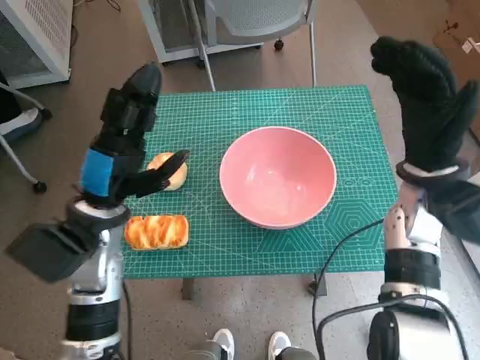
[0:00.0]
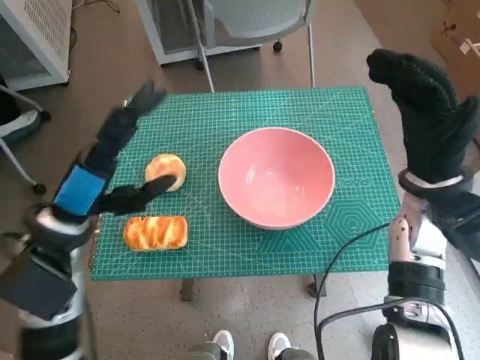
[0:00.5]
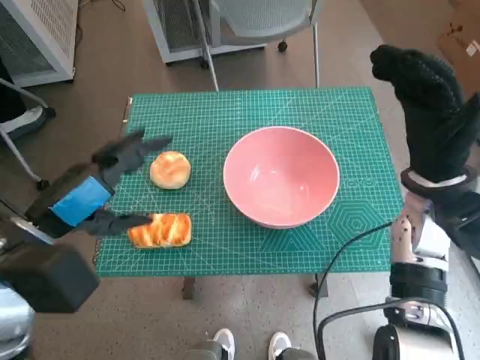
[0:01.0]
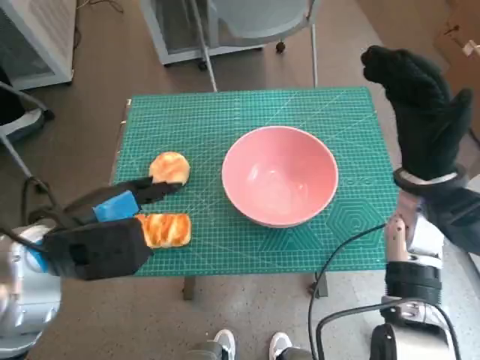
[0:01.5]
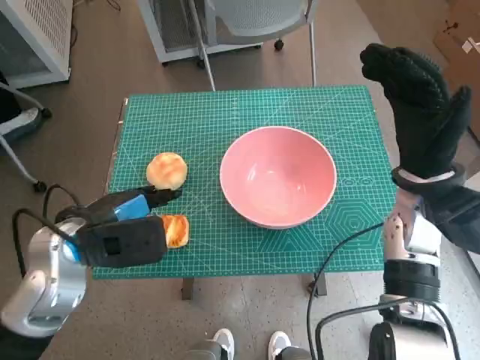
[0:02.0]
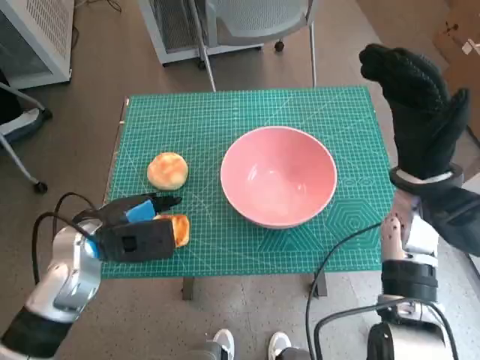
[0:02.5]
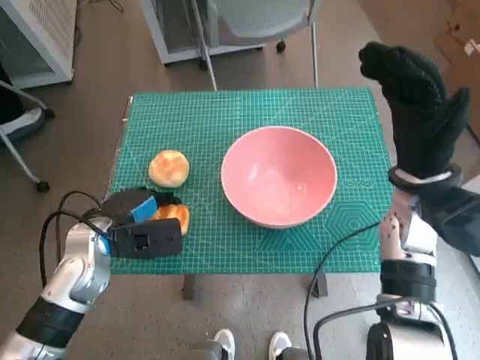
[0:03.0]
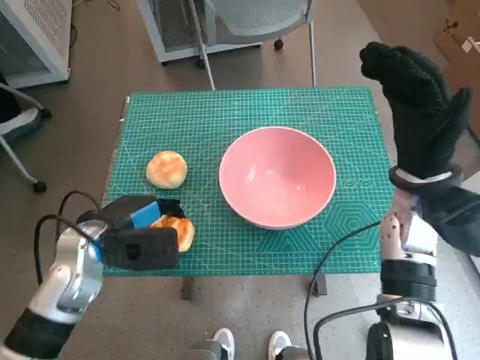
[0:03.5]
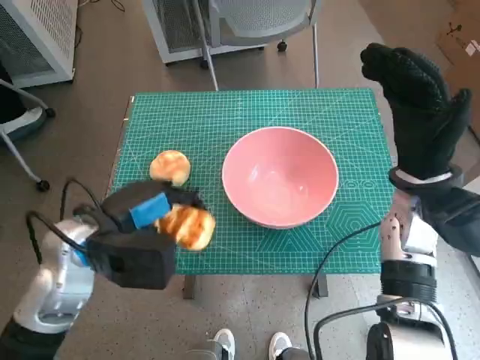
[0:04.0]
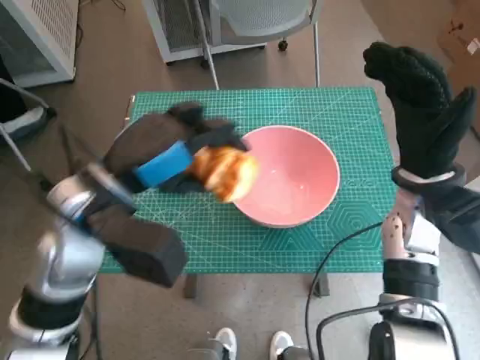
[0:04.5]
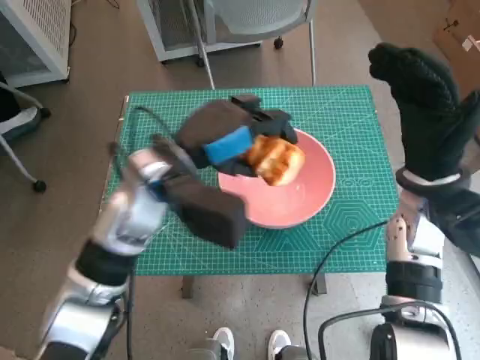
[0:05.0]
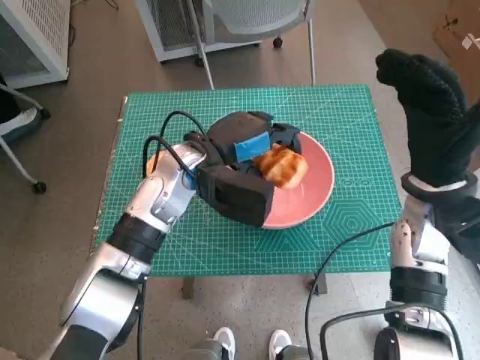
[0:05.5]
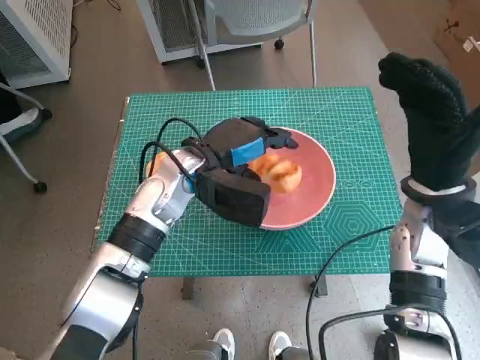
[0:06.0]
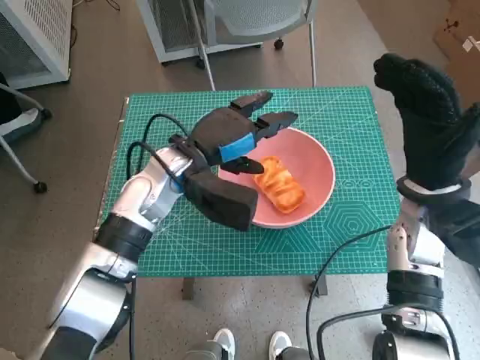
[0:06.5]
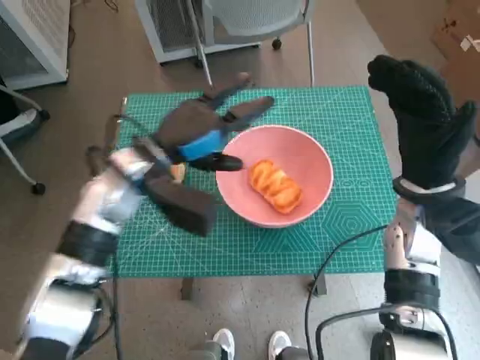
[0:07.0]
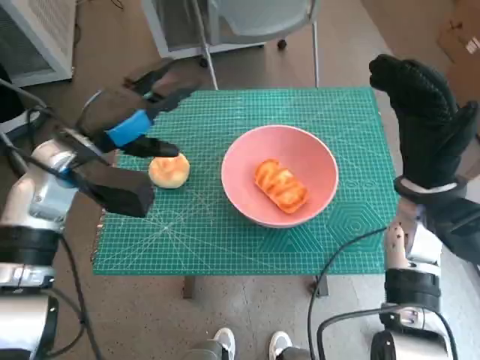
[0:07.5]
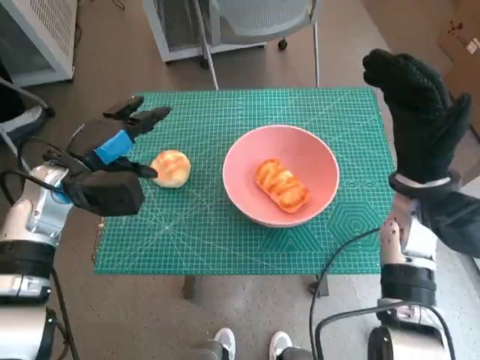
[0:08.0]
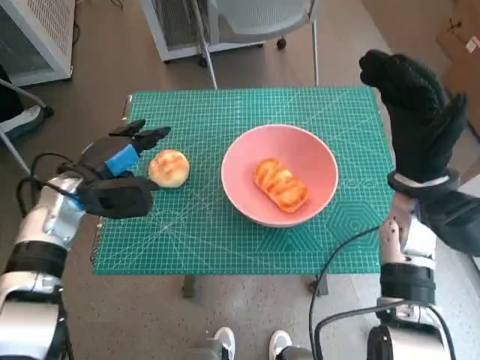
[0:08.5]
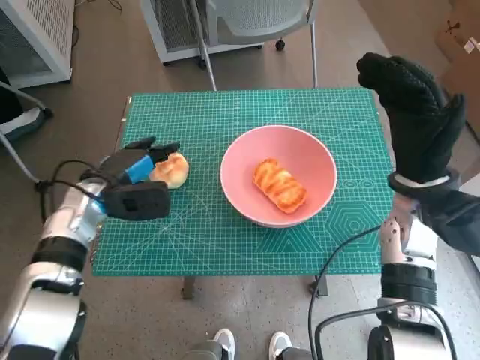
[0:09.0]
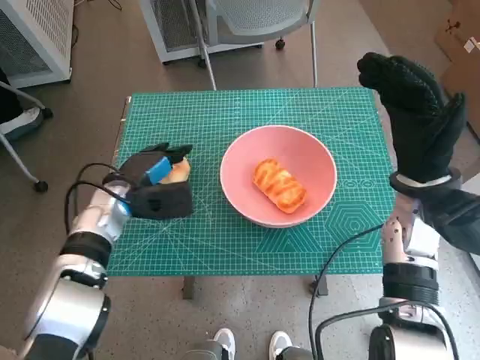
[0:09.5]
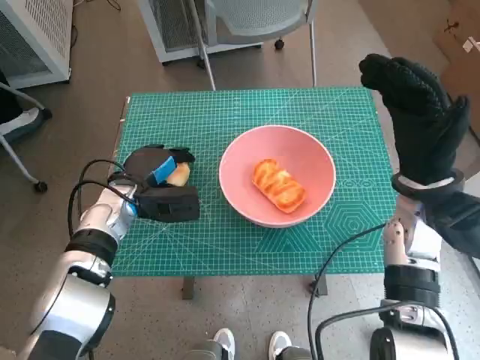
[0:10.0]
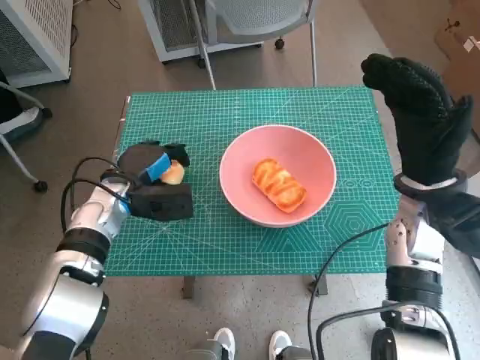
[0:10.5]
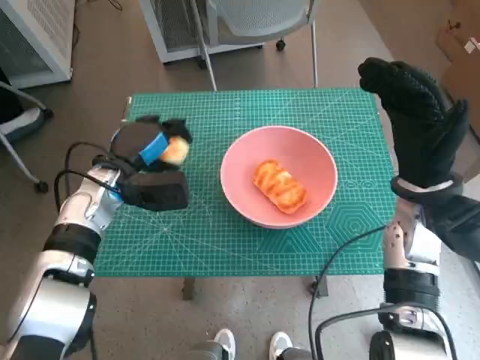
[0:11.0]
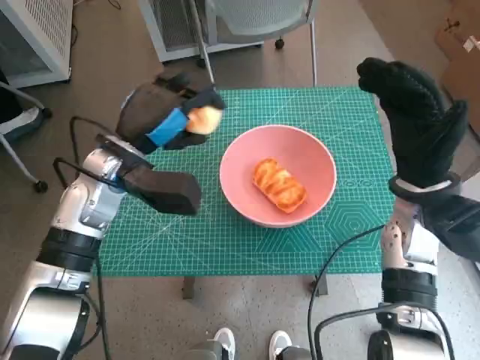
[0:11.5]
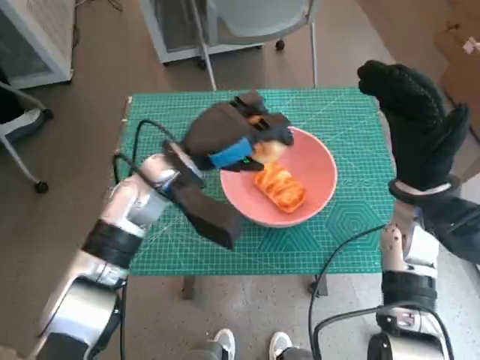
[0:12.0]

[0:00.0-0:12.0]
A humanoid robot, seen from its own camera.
Step, 0:00.0 to 0:03.0: Grasp the long bread with left hand.
Step, 0:03.5 to 0:06.0: Place the long bread in pink bowl with left hand.
Step, 0:06.5 to 0:10.0: Grasp the round bread with left hand.
0:02.0 to 0:04.0: The hands move only a little.
0:04.0 to 0:06.0: The left hand moves forward and to the right, approximately 15 cm.
0:06.0 to 0:08.0: The left hand is displaced to the left by about 15 cm.
0:08.0 to 0:10.0: The left hand shifts about 10 cm downward and to the right.
0:10.0 to 0:12.0: The left hand goes approximately 15 cm to the right and upward.

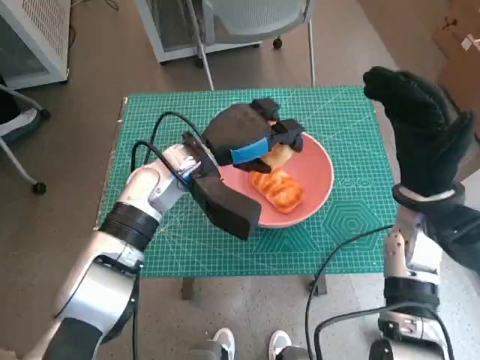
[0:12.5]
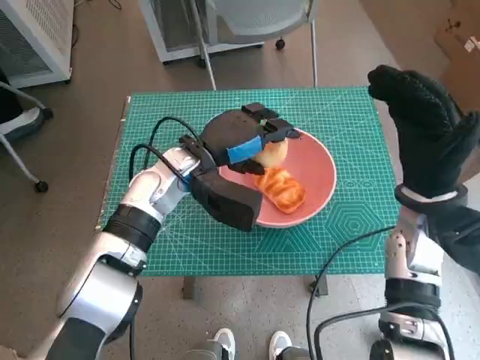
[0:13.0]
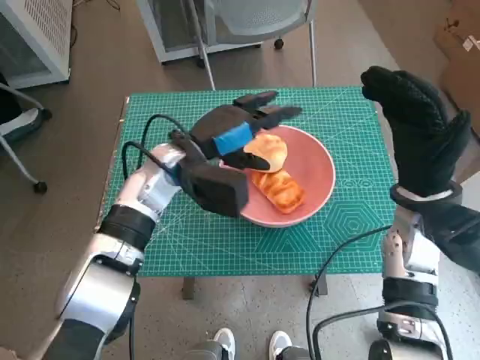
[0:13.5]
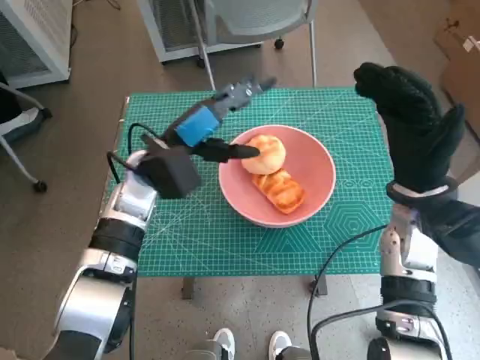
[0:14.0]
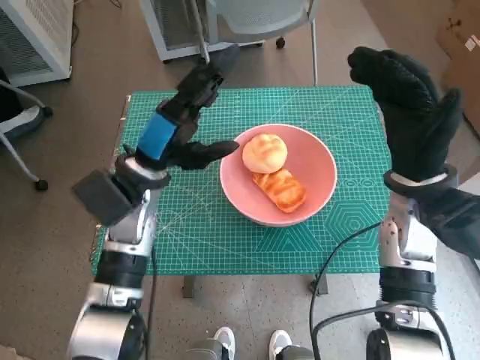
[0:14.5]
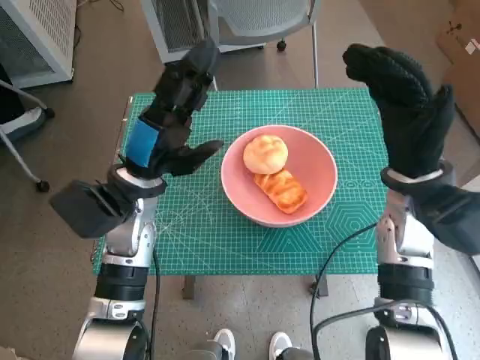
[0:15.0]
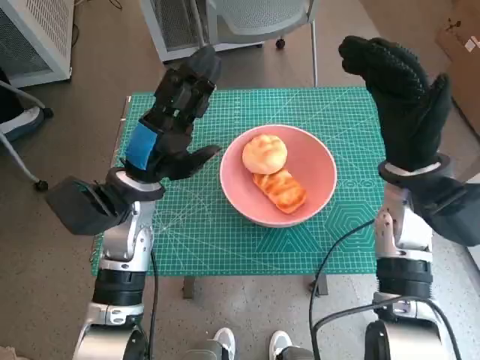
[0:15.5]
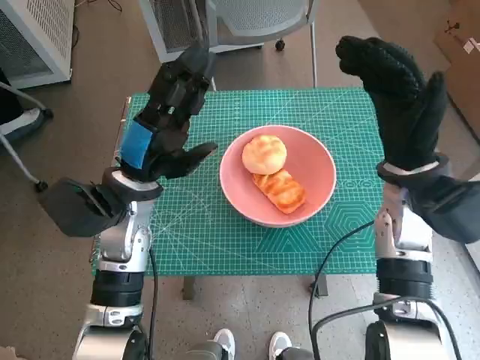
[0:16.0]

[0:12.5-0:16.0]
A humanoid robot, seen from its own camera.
0:12.5 to 0:14.5: The left hand travels to the left by approximately 5 cm.
